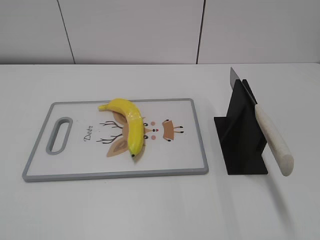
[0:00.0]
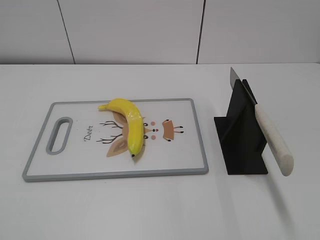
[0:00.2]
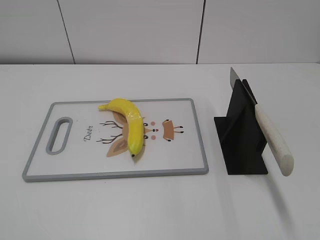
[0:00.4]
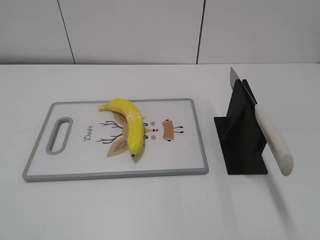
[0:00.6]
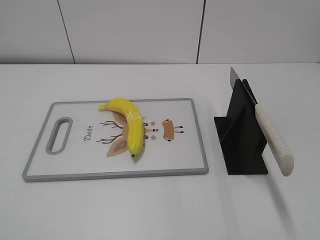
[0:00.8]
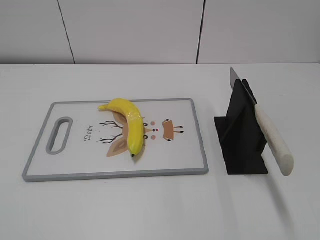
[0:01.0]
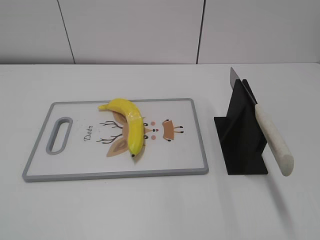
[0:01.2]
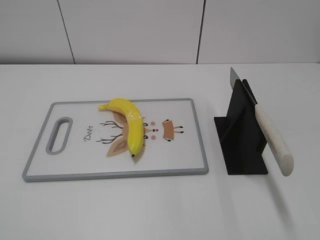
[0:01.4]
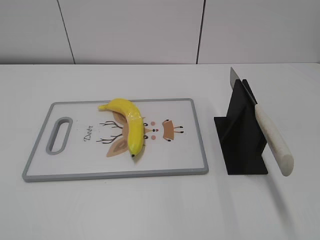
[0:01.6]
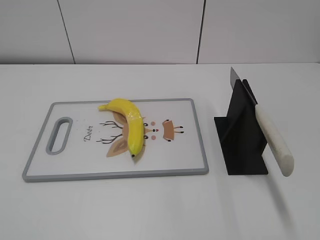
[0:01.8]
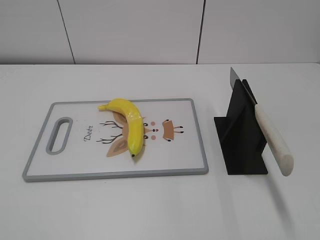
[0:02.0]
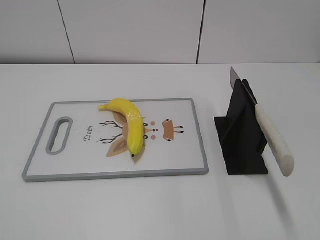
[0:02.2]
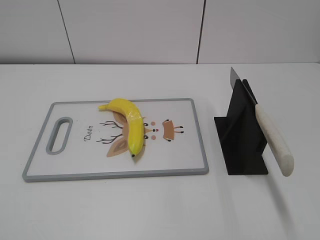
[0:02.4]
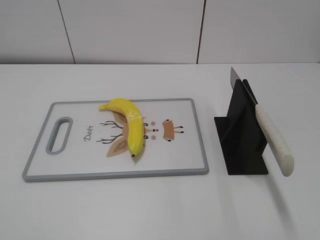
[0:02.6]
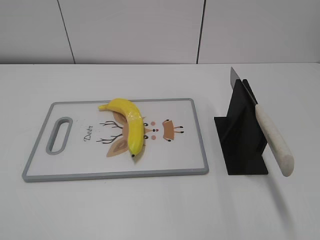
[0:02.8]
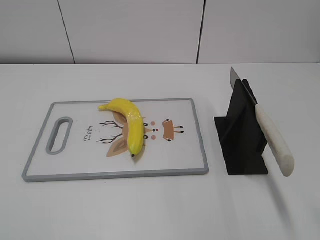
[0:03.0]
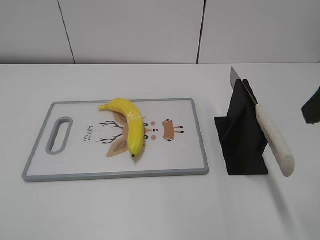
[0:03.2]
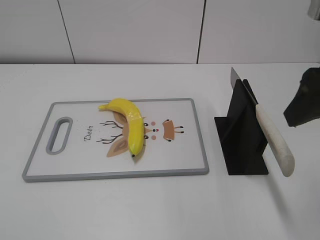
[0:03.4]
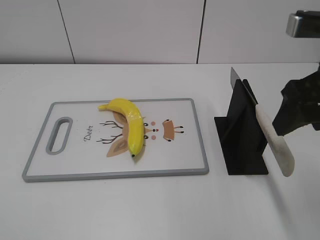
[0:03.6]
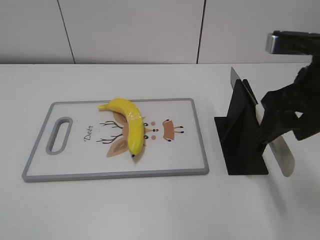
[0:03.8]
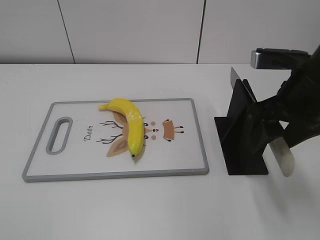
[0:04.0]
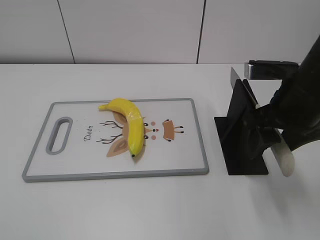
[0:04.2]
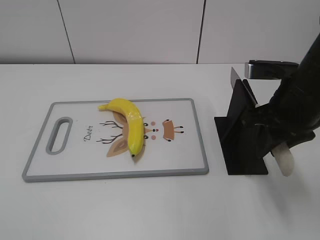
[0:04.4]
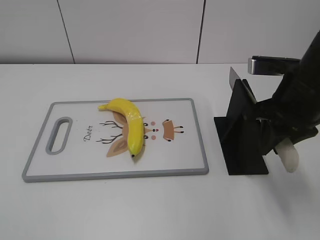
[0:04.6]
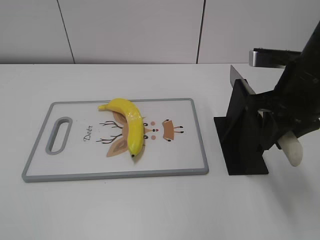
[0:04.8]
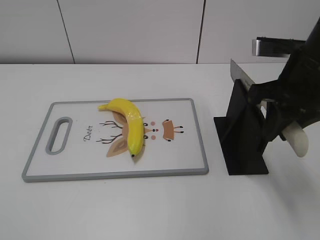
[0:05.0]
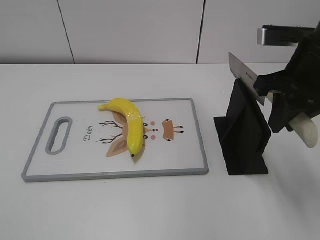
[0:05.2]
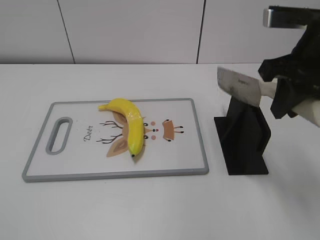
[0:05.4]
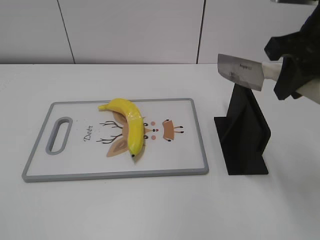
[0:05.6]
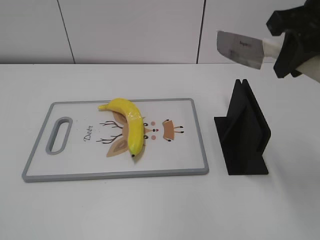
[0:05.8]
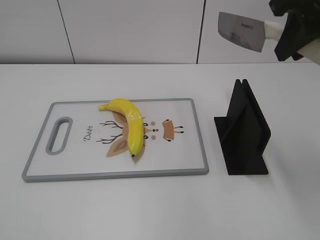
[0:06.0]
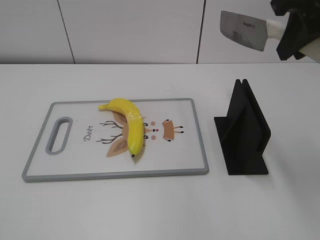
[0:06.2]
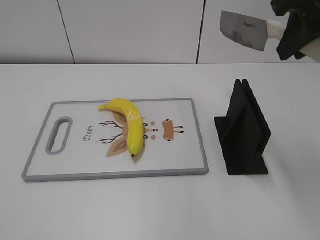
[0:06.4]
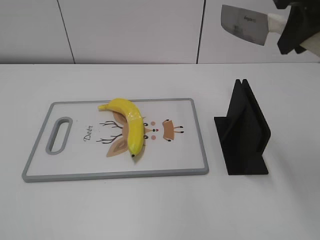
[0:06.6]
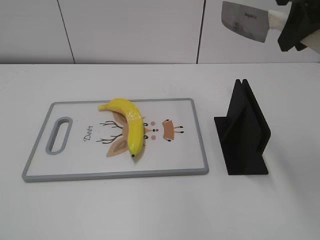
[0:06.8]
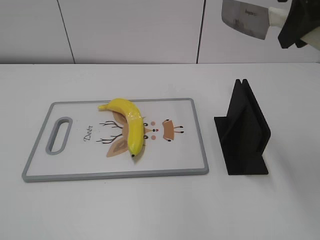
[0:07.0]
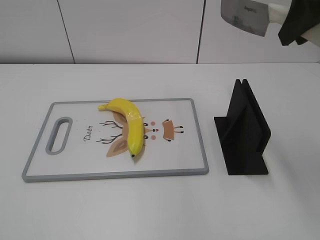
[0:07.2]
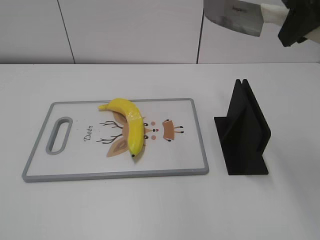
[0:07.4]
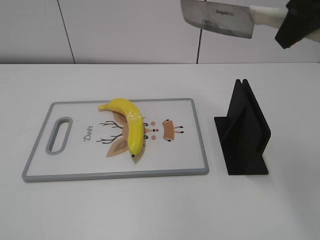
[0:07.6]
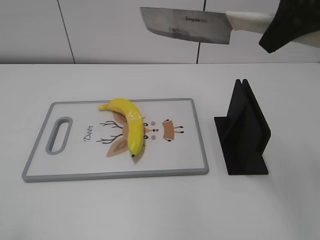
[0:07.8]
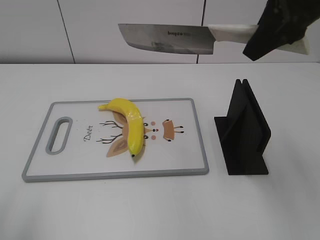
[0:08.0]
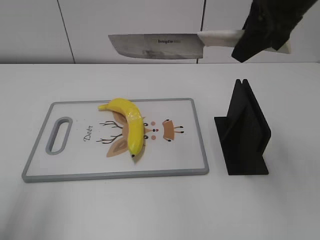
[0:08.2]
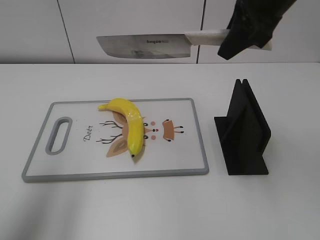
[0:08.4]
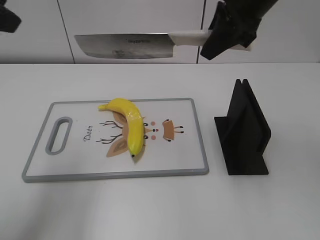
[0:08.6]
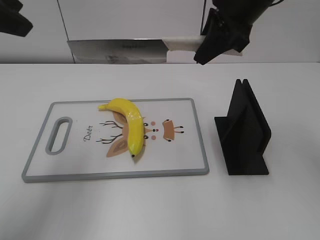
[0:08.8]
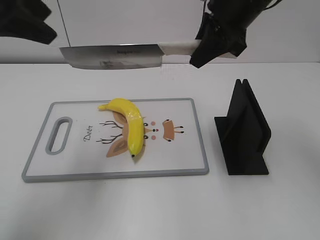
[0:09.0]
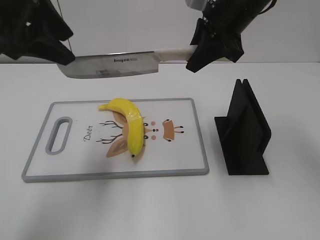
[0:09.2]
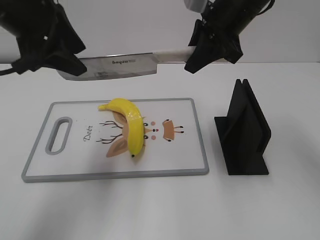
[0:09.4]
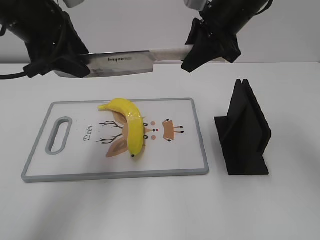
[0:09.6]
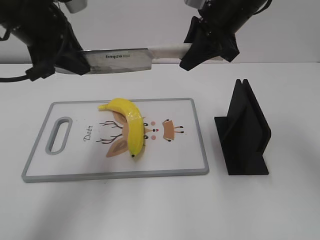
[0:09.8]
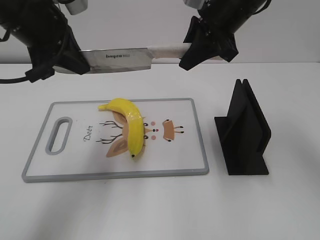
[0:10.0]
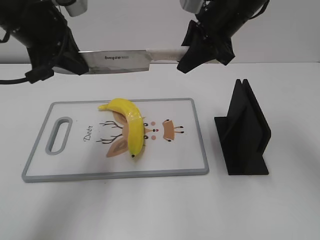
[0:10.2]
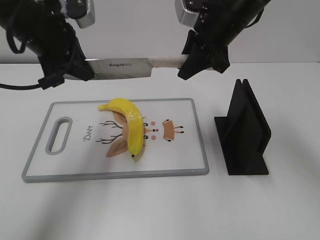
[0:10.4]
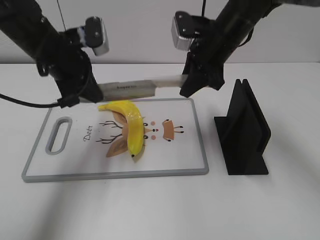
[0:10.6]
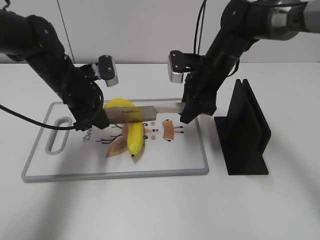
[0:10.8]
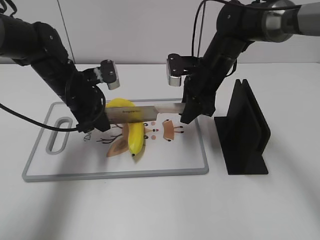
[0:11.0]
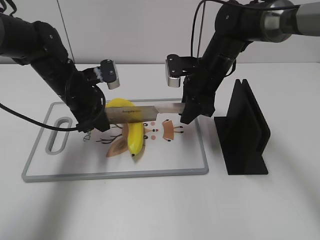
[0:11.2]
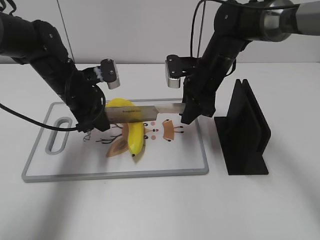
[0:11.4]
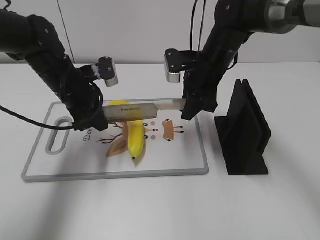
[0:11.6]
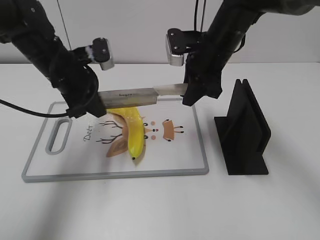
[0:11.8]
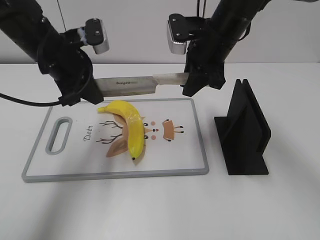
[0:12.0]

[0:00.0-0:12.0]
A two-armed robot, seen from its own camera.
Task of the whole recording: cut plastic banana.
Step, 0:00.0 to 0:05.4: Grab the knife handle with your right hand.
0:03.0 to 0:04.4: The right gripper travels downward, forward and to the left by some 20 cm, and closes its fingers.
0:04.4 to 0:06.0: The right gripper is displaced upward by roughly 15 cm, and closes up.
0:07.6 to 0:09.0: The right gripper goes some 15 cm forward, downward and to the left, while the left gripper travels forward by some 30 cm.
0:09.0 to 0:10.4: The left gripper is displaced downward, to the right and forward by roughly 10 cm, and closes.
0:10.4 to 0:12.0: The left gripper goes some 5 cm downward. Meanwhile the right gripper reaches approximately 15 cm downward, then returns.

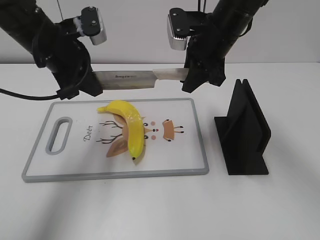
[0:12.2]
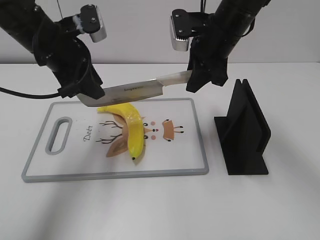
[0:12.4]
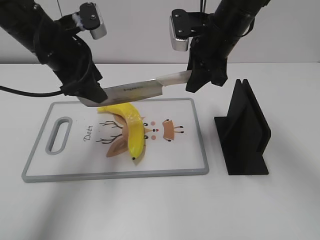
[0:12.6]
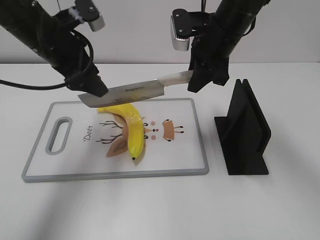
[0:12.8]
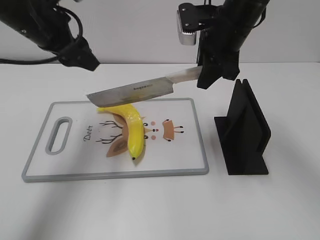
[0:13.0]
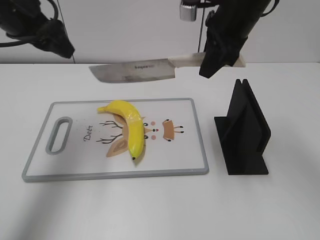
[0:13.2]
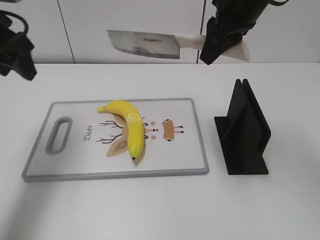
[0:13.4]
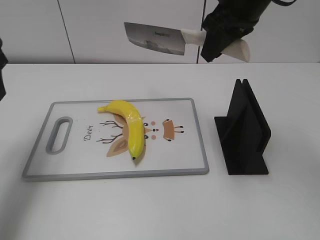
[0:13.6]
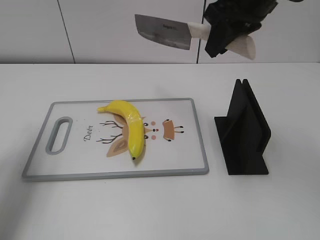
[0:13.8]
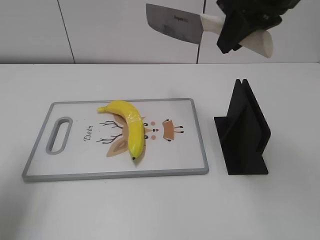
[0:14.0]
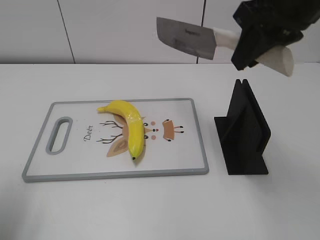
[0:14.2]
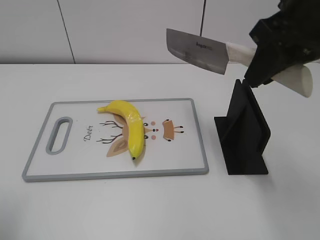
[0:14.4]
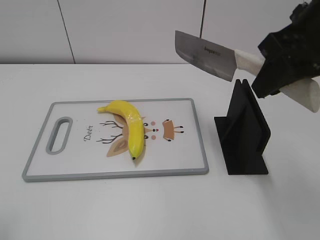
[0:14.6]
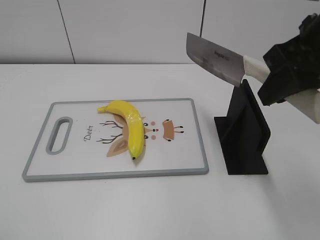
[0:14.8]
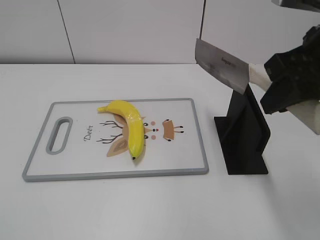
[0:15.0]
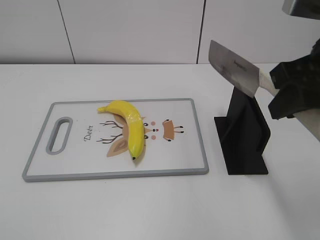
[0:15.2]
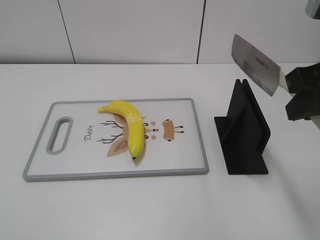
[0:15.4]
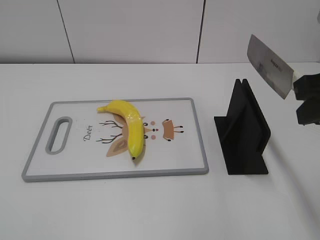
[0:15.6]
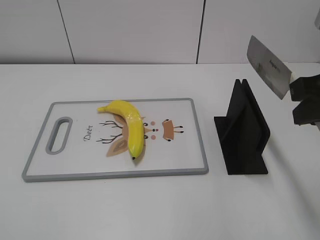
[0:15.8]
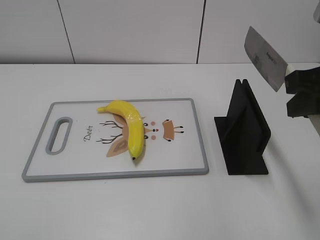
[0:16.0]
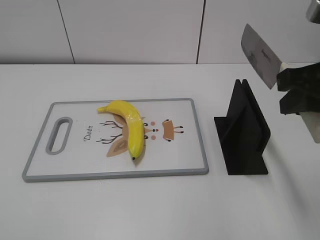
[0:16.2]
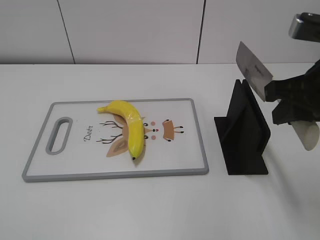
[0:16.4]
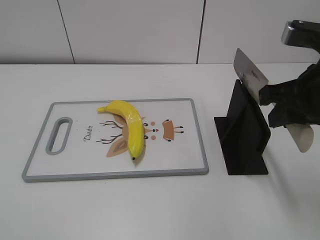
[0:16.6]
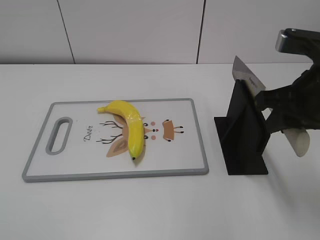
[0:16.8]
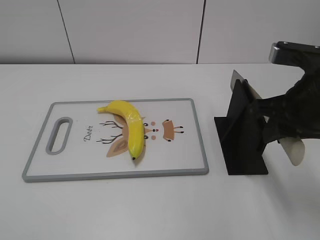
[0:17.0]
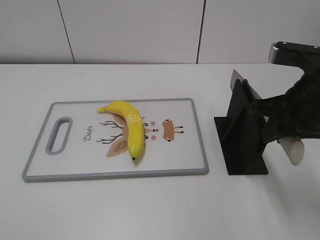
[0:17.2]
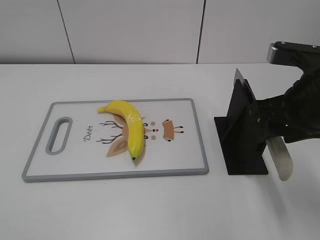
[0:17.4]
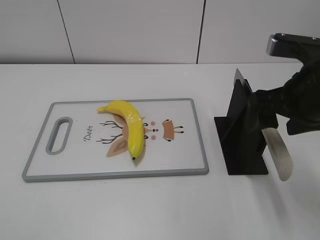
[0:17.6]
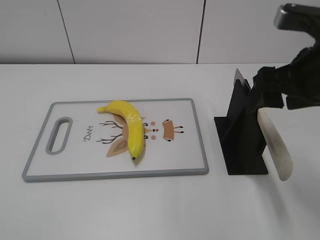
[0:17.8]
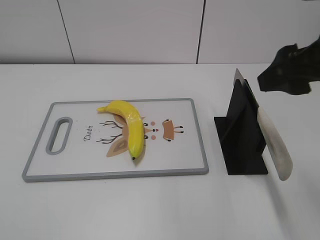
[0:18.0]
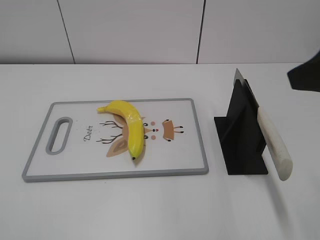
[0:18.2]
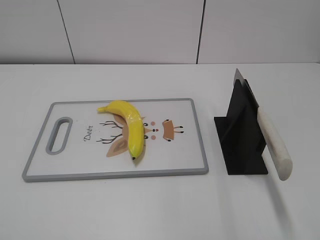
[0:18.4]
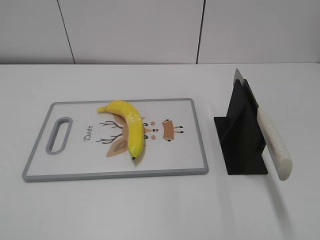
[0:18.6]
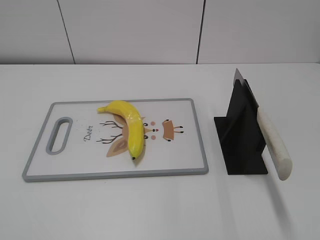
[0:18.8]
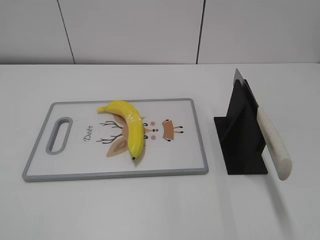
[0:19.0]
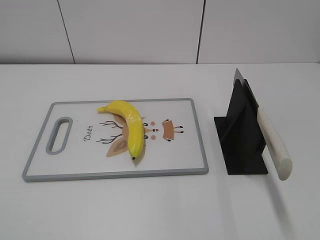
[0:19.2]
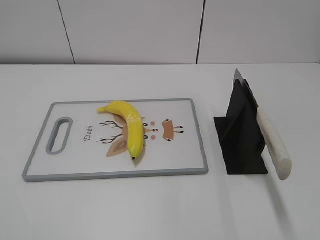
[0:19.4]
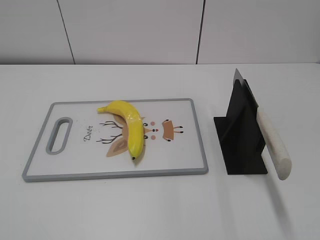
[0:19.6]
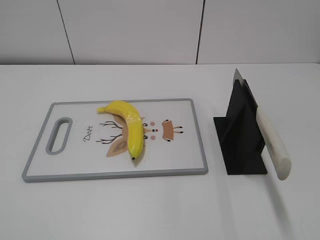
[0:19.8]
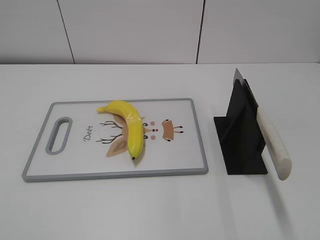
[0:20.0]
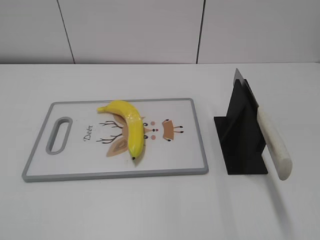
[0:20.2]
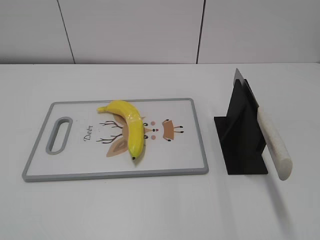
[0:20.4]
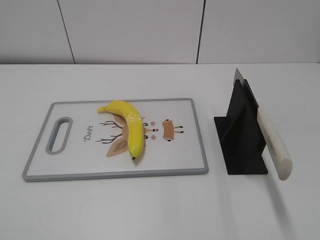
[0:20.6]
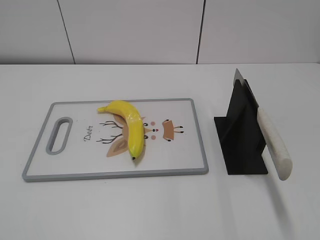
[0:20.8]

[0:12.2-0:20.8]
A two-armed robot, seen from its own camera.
Task of the whole recording: cut plastic banana.
Step, 0:12.8 to 0:13.4: Cut the banana with your right hand.
Step, 0:13.8 to 0:14.8: Lift the knife with your right hand.
Step, 0:15.0 to 0:20.8: Place the knife on the storage rack with your right hand.
0:12.2 to 0:13.6: The right gripper moves upward, some 10 cm. The left gripper travels to the left by about 10 cm, and opens its fingers.
0:13.6 to 0:15.0: The right gripper travels backward and to the right by approximately 15 cm, while the left gripper shifts about 30 cm backward.
0:15.0 to 0:16.6: The left gripper goes about 5 cm backward. Meanwhile the right gripper shifts roughly 5 cm downward.
0:16.6 to 0:18.0: The right gripper opens up.
0:18.0 to 0:19.4: The right gripper travels backward and to the right by about 25 cm.
